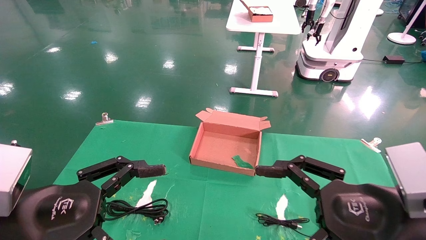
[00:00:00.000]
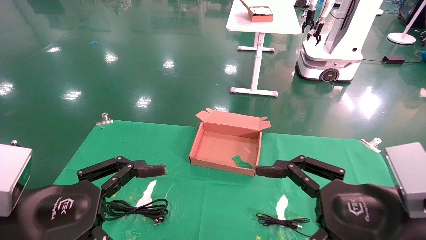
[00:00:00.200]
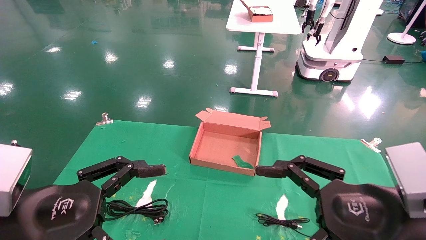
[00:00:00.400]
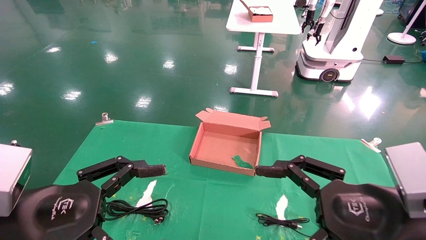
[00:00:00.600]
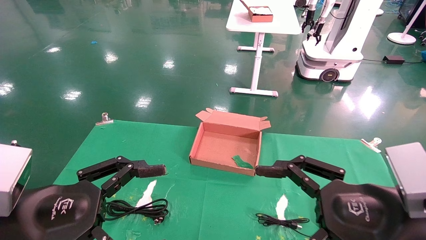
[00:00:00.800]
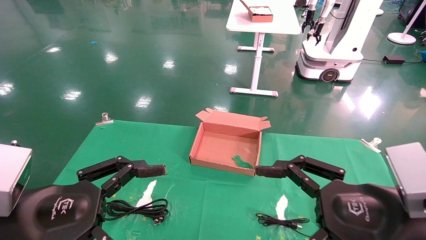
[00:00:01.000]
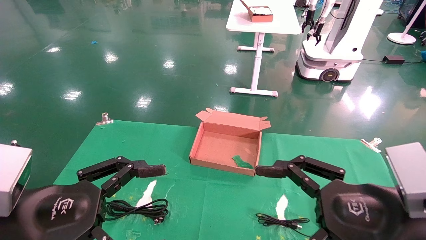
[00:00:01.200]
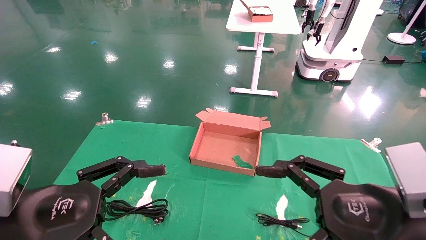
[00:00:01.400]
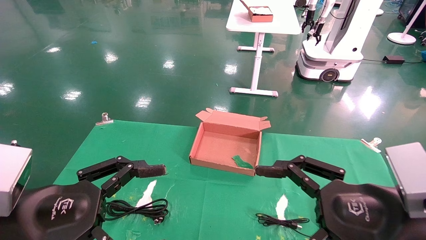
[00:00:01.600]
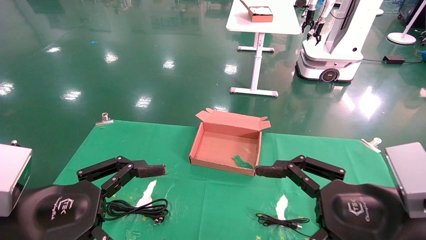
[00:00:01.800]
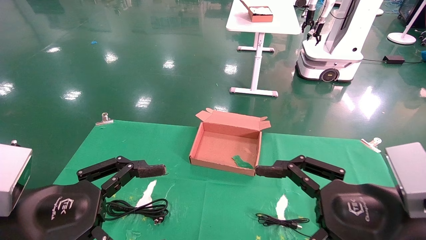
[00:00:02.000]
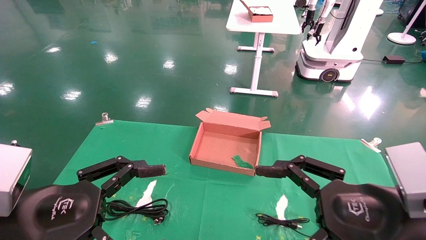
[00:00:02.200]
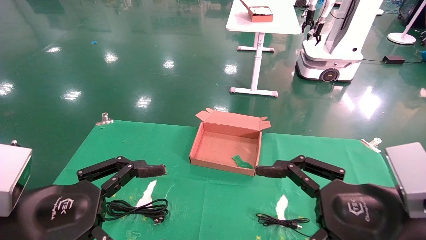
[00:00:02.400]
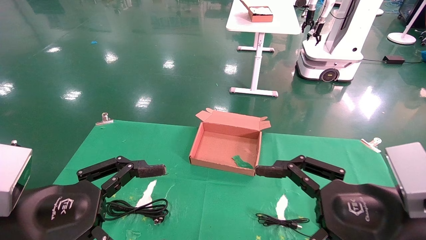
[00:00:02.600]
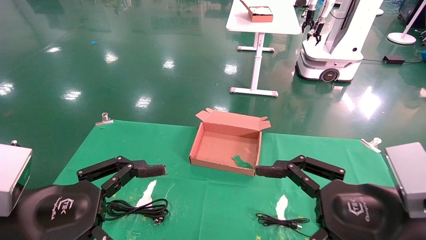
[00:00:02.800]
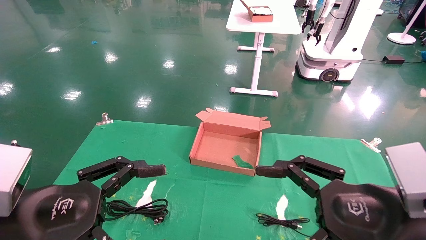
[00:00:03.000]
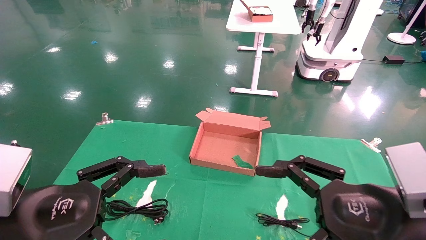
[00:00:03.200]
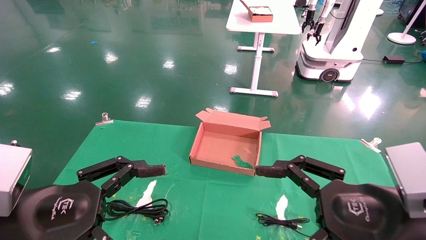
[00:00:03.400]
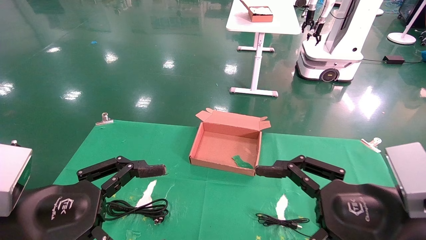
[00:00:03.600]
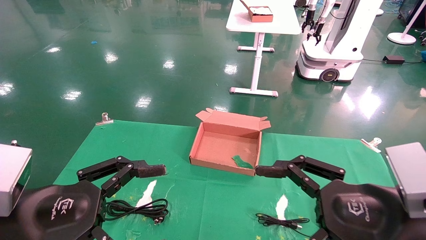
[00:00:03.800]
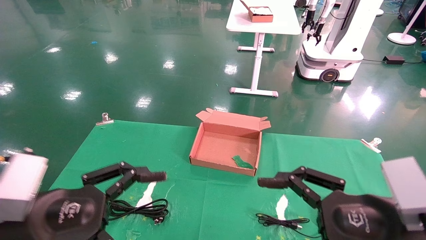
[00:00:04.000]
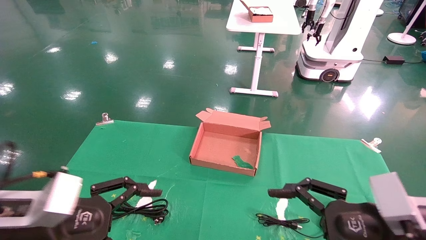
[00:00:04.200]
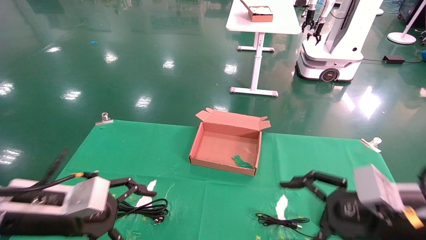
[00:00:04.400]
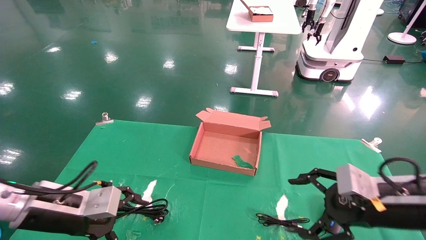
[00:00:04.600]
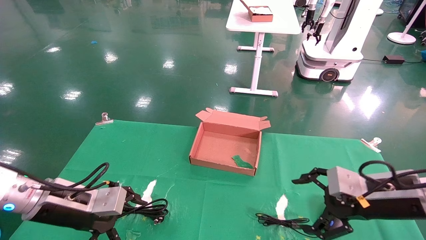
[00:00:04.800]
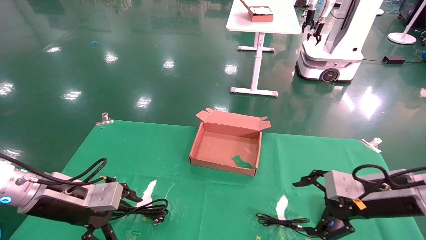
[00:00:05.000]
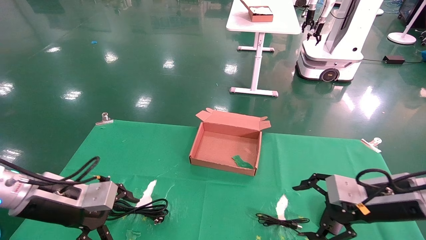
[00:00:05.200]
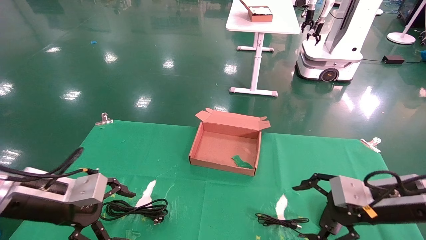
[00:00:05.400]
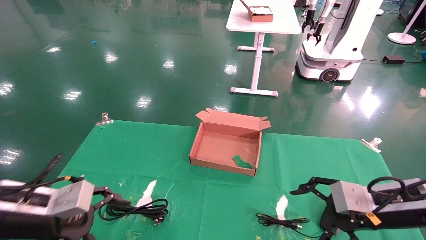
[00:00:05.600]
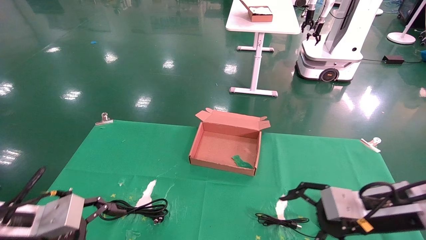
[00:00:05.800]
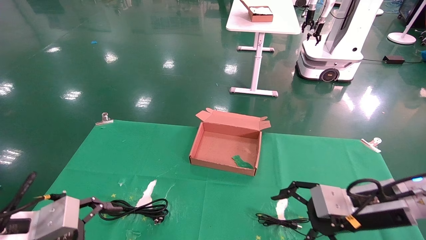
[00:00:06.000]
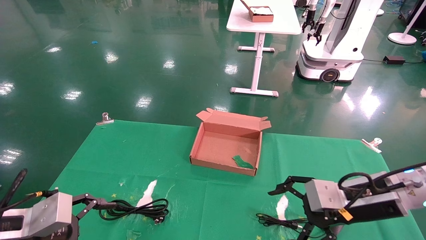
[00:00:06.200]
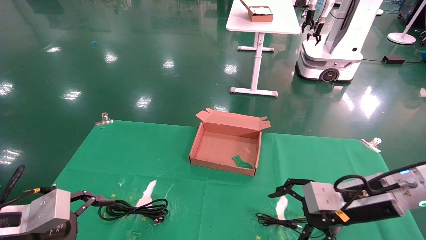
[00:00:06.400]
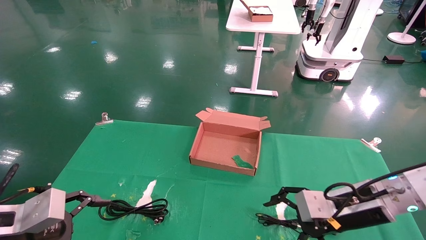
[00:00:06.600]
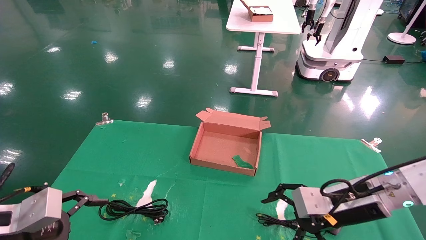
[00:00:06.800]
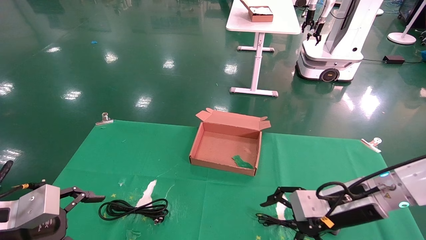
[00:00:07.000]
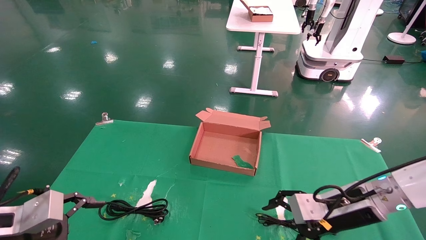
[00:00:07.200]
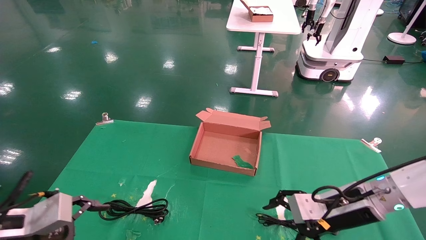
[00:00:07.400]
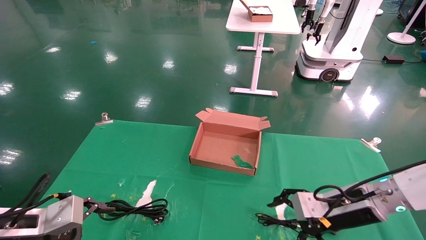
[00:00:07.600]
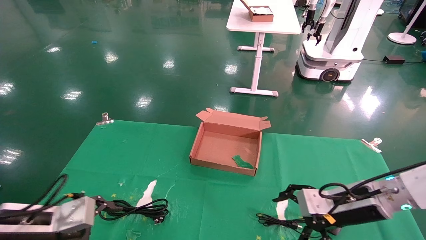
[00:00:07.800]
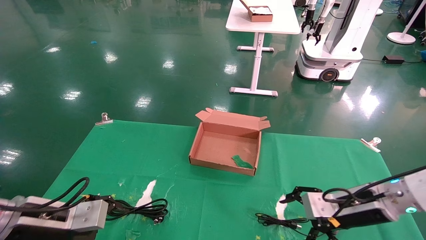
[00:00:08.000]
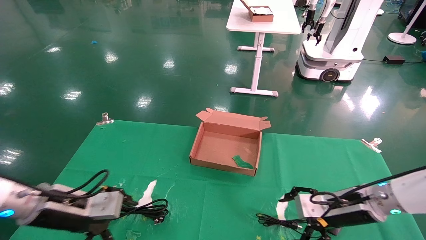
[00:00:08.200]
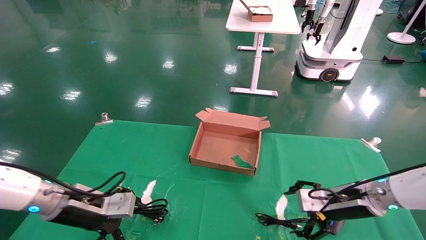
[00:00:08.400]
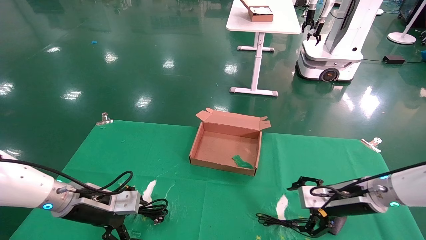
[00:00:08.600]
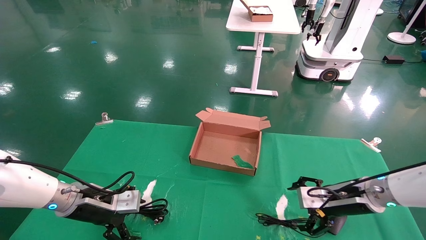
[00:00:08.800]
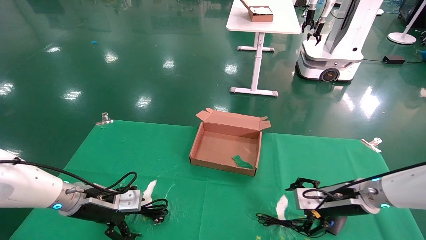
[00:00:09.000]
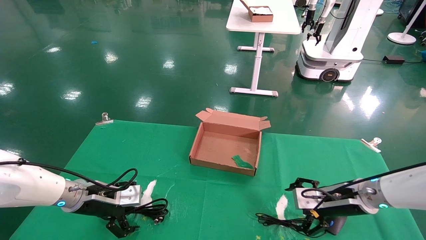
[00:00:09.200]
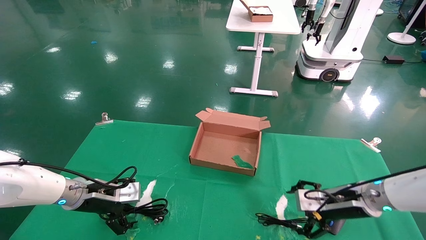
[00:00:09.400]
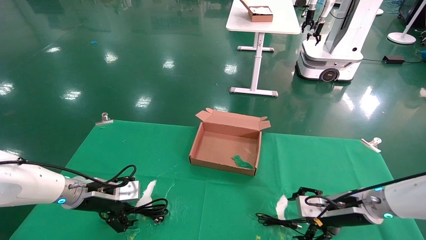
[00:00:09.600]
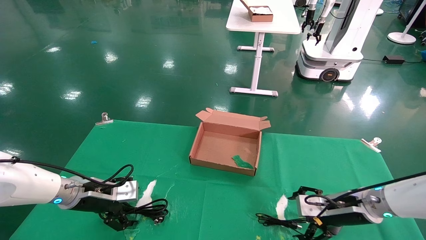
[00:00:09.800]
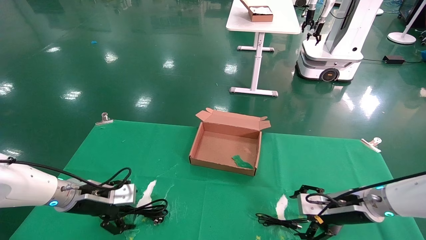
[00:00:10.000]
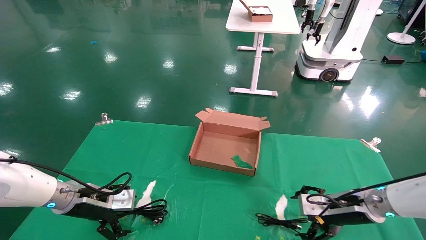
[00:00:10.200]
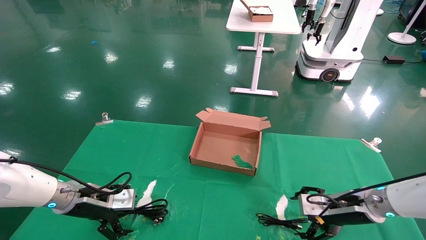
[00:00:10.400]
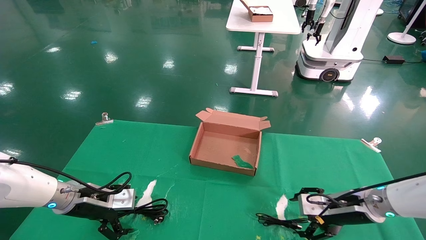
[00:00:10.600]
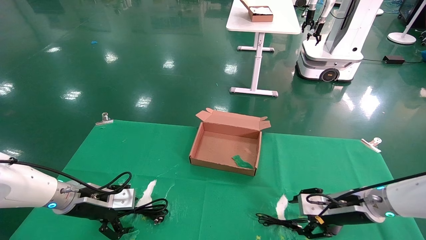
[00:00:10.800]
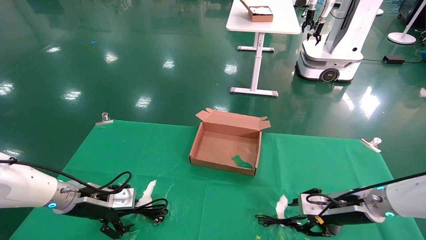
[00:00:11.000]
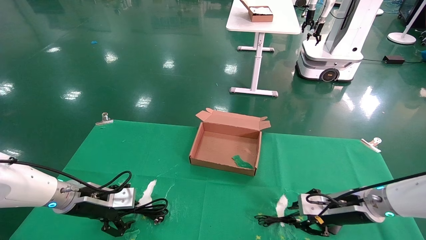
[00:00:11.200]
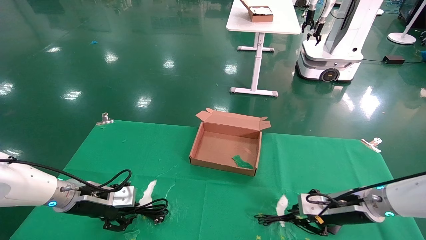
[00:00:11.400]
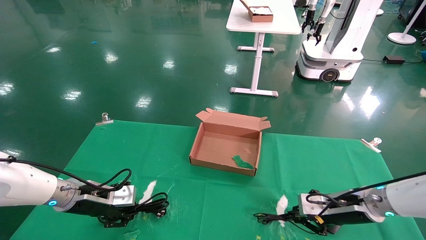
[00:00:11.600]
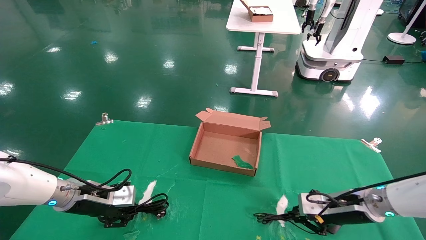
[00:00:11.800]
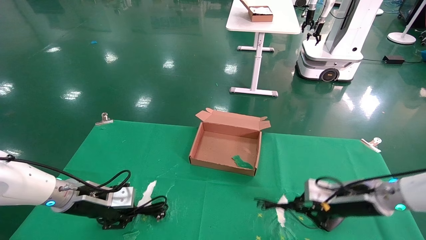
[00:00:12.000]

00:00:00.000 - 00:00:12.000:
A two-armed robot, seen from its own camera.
Step, 00:00:04.000 - 00:00:11.600: Grab and lift both the mouse and power cord from the accessory packaging area at the same time.
00:00:00.000 - 00:00:03.000: The two grippers keep their place.
00:00:03.000 - 00:00:04.400: Both grippers move forward, approximately 10 cm.
00:00:04.400 - 00:00:06.000: The left gripper ends up approximately 5 cm from where it was. Meanwhile the right gripper is displaced forward by roughly 5 cm.
00:00:06.000 - 00:00:07.600: The grippers make only small movements.
00:00:07.600 - 00:00:09.000: The right gripper travels forward by about 5 cm. The left gripper heads forward, covering roughly 15 cm.
00:00:09.000 - 00:00:10.400: The grippers move only a little.
00:00:10.400 - 00:00:12.000: The right gripper closes up, while the left gripper closes.

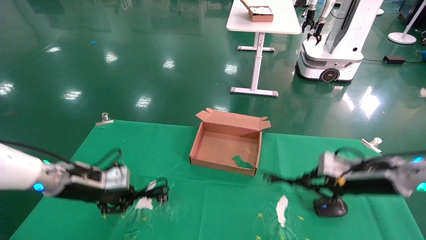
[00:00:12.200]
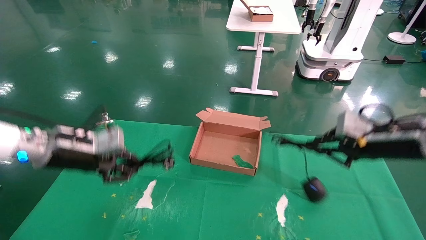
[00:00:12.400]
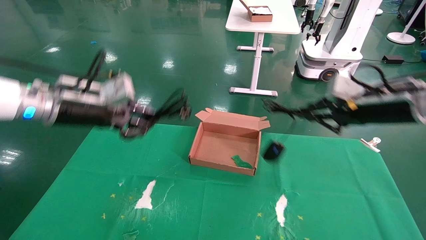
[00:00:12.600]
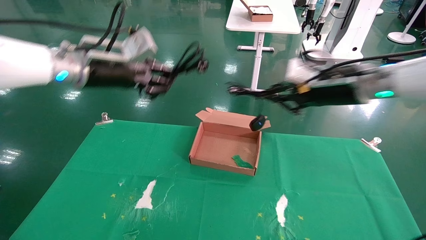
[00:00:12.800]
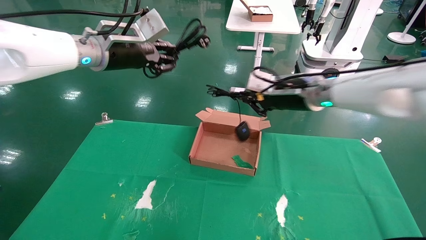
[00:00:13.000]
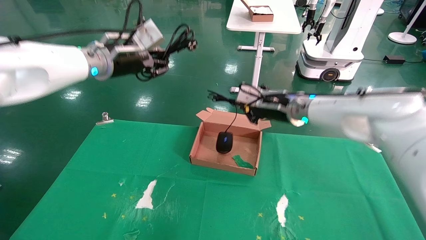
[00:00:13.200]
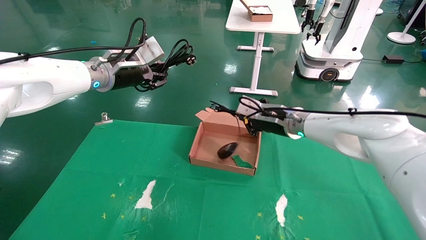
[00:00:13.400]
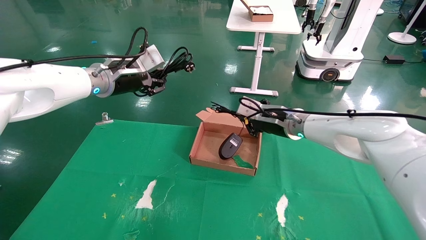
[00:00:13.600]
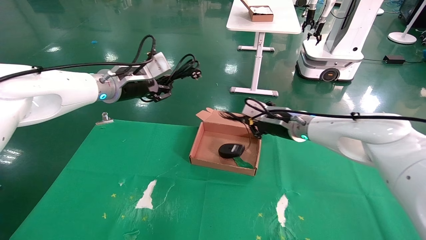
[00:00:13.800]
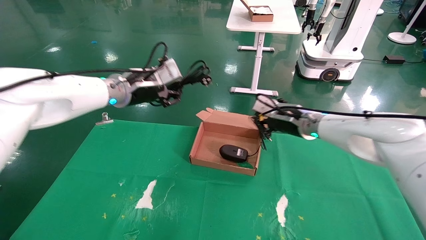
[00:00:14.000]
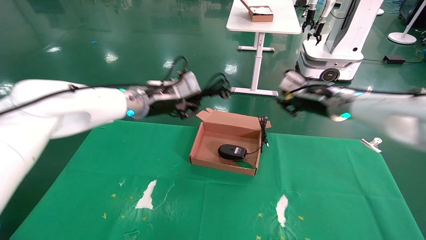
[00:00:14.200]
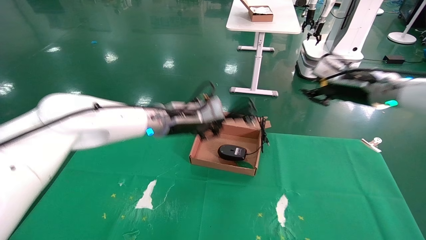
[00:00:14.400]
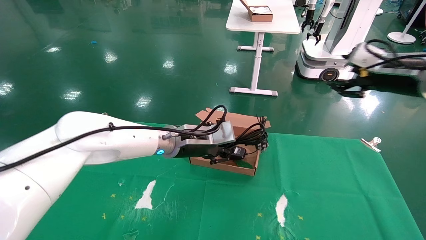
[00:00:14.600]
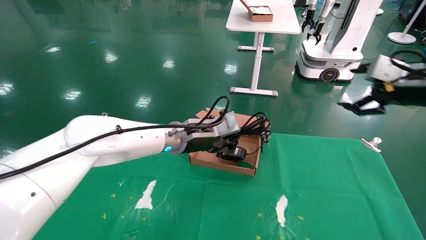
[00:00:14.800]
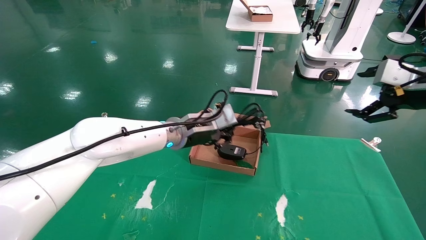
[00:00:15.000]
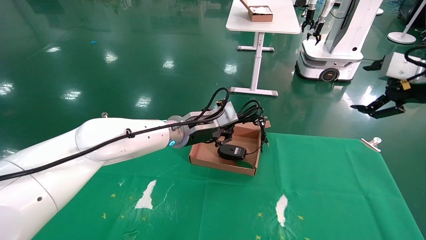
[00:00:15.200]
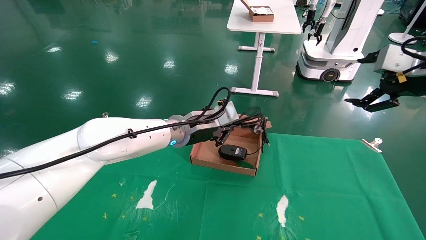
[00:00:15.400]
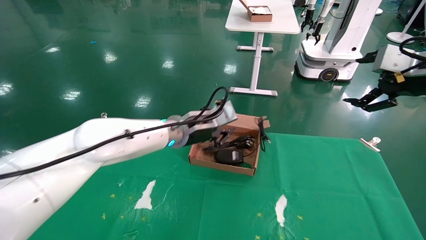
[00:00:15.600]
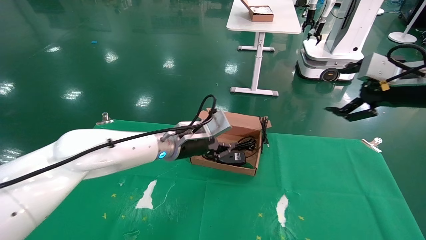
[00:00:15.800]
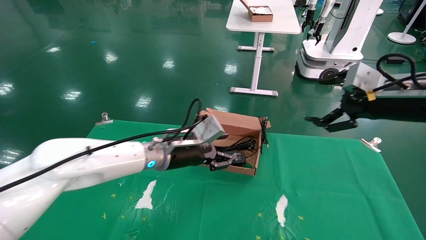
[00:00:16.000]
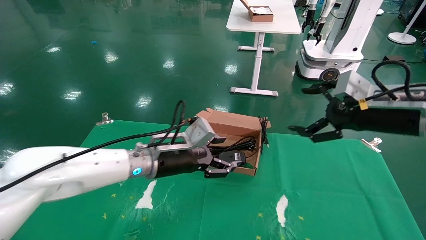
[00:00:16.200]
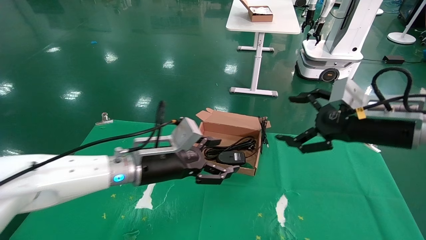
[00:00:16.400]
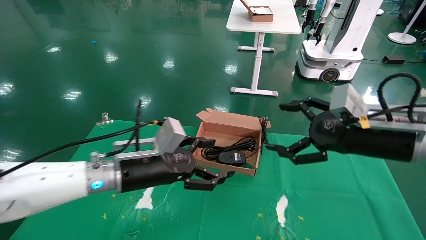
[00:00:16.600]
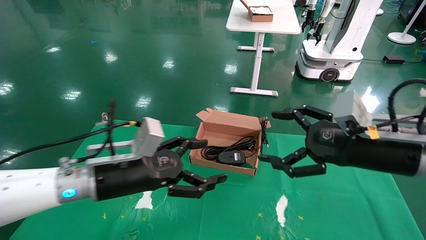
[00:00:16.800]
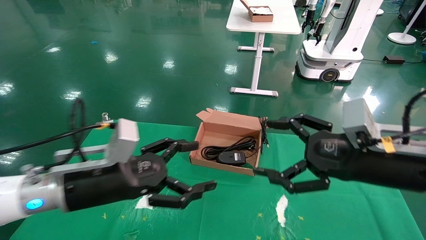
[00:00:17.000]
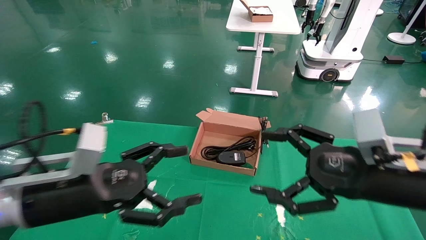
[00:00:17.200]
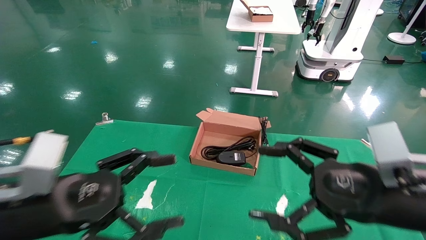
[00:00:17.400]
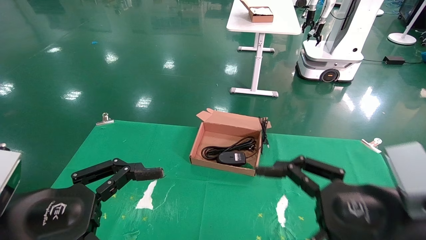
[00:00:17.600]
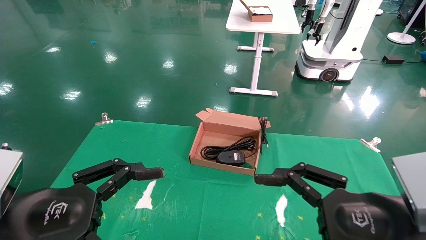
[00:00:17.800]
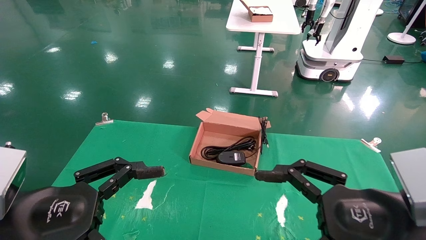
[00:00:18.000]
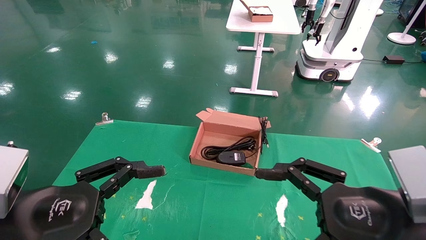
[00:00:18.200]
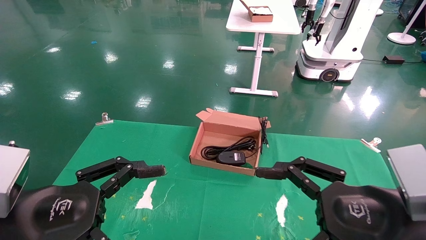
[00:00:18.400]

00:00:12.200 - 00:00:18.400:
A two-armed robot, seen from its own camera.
Step, 00:00:12.200 - 00:00:15.800: Place the mouse and power cord into the box.
00:00:12.200 - 00:00:13.800: The right gripper moves to the left and forward, some 20 cm. Meanwhile the left gripper heads upward and to the right, covering roughly 20 cm.
00:00:13.800 - 00:00:15.400: The left gripper goes roughly 20 cm to the right and downward. The right gripper travels to the right, backward and upward by some 30 cm, and opens up.
00:00:15.400 - 00:00:16.800: The right gripper heads to the left and downward, covering approximately 15 cm. Meanwhile the left gripper travels backward and to the left by approximately 20 cm, and opens up.
00:00:16.800 - 00:00:18.400: The left gripper heads backward and to the left, covering about 15 cm; the right gripper travels backward by approximately 10 cm.
